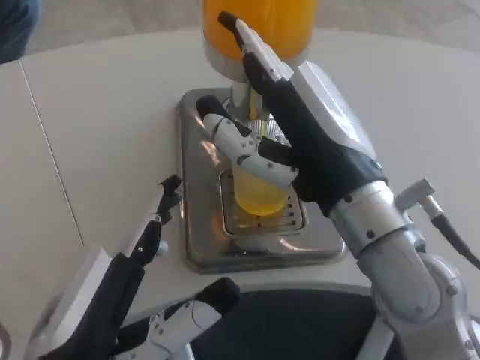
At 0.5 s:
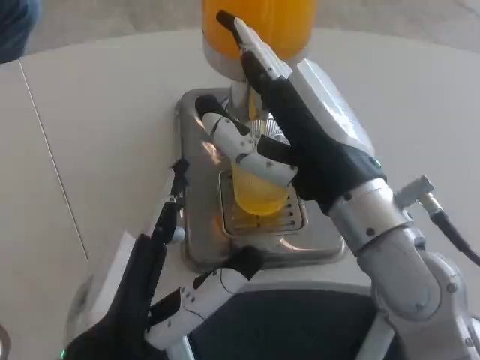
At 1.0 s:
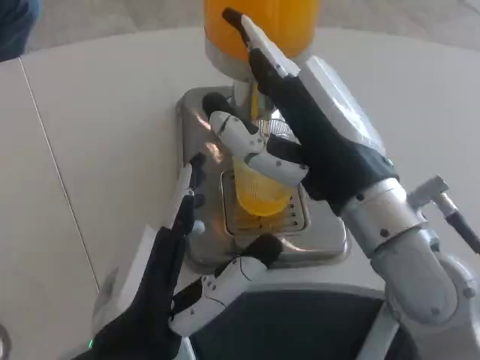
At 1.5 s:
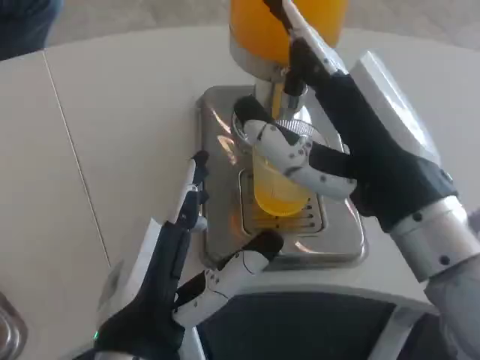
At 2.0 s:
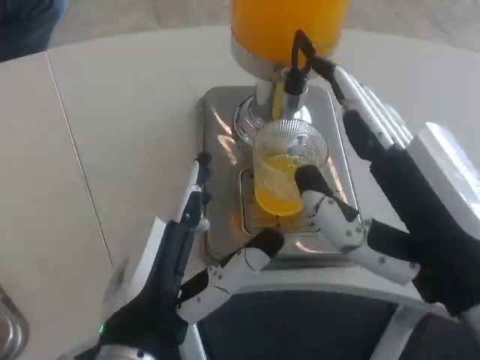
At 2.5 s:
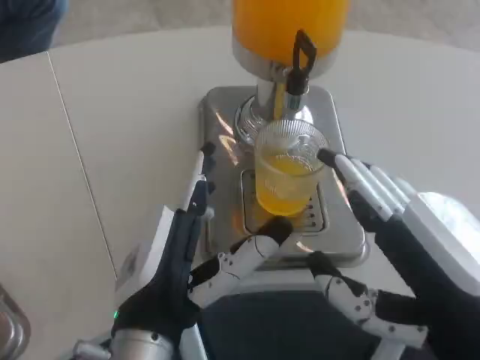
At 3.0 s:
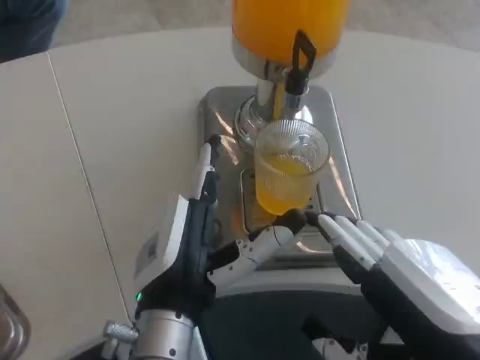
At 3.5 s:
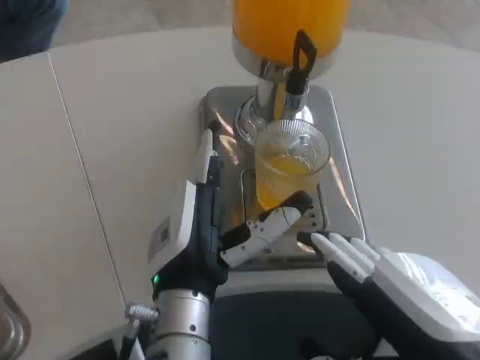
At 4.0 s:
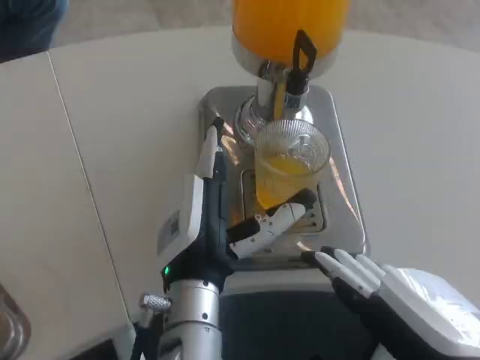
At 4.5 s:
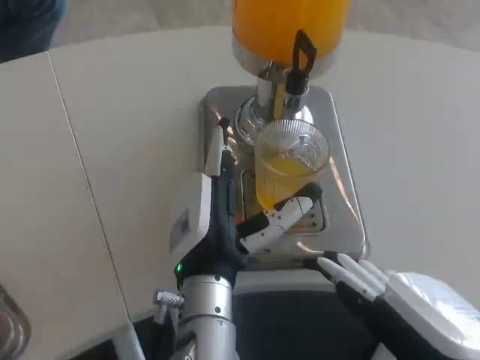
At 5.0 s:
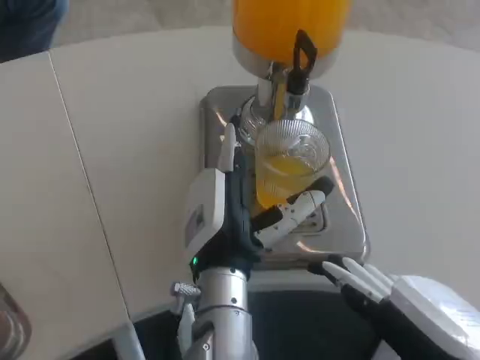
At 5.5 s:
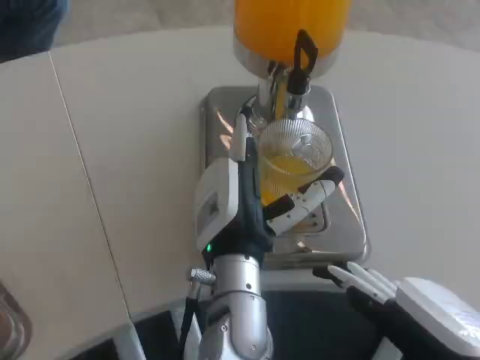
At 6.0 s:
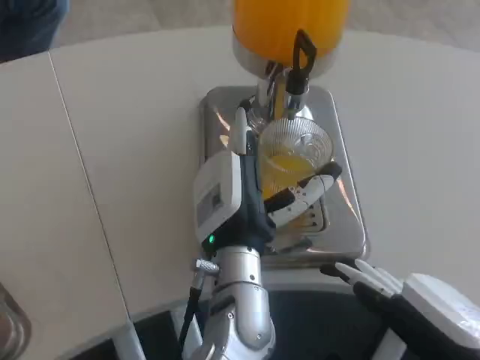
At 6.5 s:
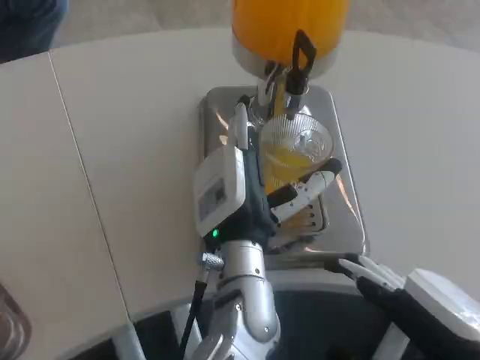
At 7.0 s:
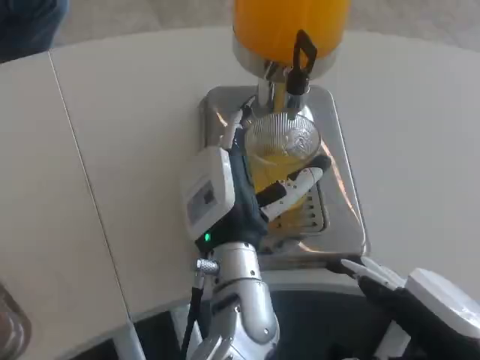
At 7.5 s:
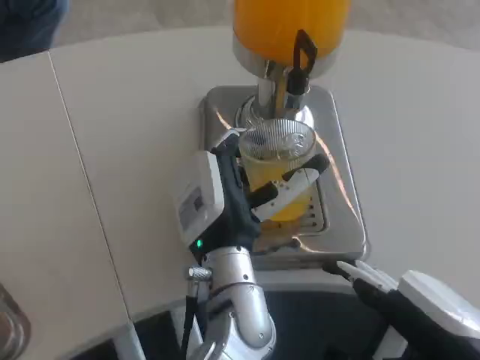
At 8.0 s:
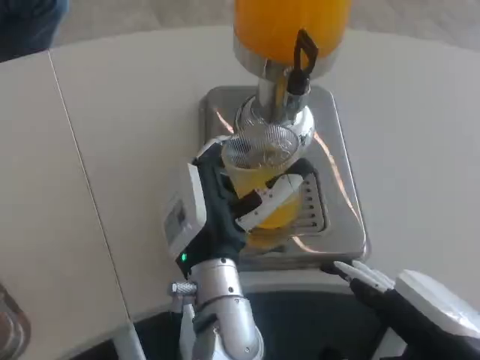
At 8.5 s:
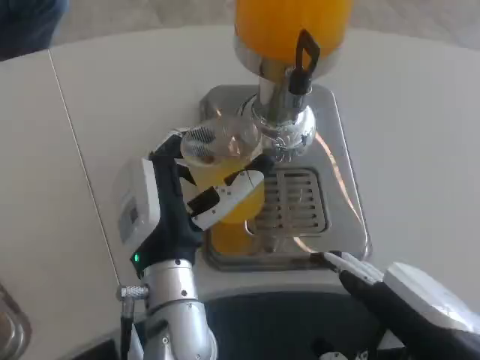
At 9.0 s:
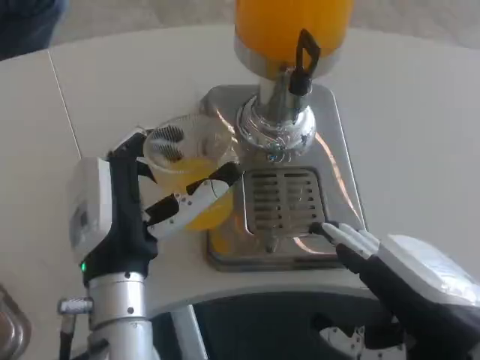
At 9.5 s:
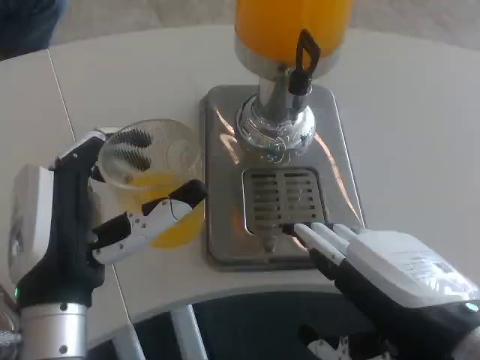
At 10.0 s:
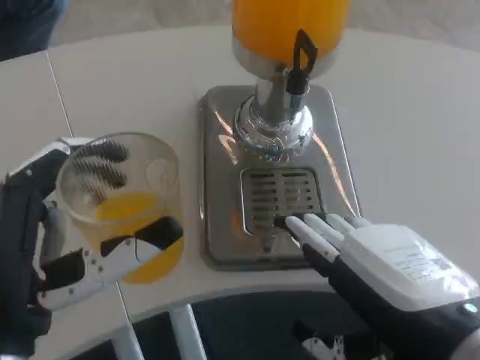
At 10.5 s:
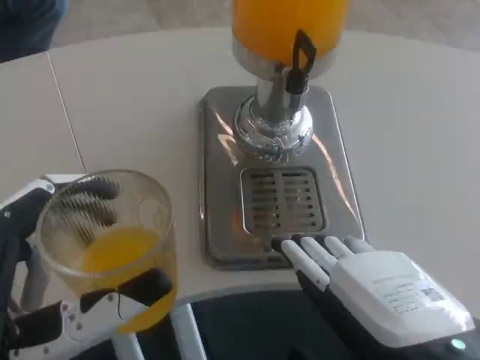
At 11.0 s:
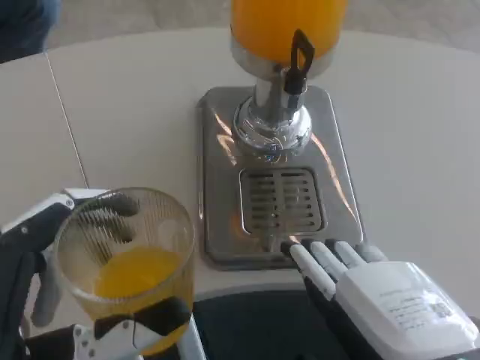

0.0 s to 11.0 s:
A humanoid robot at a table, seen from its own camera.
Task of the whole recording: Grasp the cup under the faucet to collect the drink, then remove the cup.
0.0 to 2.0 s: The left hand moves roughly 5 cm, while the right hand shifts some 10 cm backward and to the right.
2.0 to 3.5 s: The left hand goes approximately 5 cm forward.
3.5 to 5.5 s: The left hand goes roughly 5 cm to the right.
5.5 to 7.5 s: The hands make only small movements.
7.5 to 9.0 s: The left hand heads to the left, covering roughly 10 cm.
9.0 to 11.0 s: The right hand shifts by roughly 5 cm; the left hand is displaced backward and to the left by approximately 15 cm.

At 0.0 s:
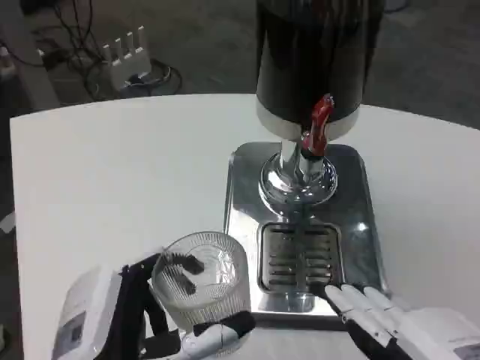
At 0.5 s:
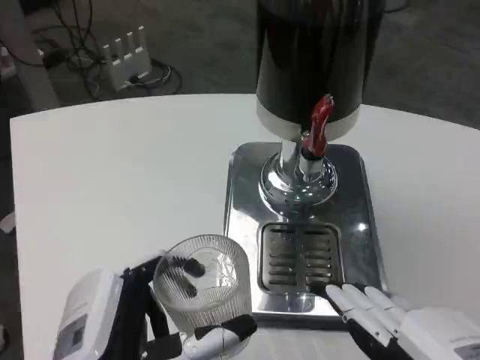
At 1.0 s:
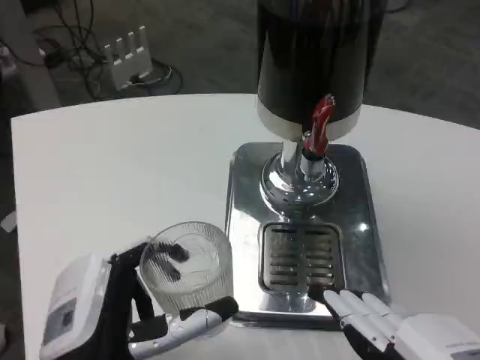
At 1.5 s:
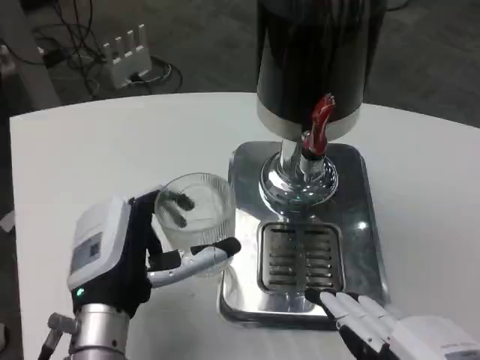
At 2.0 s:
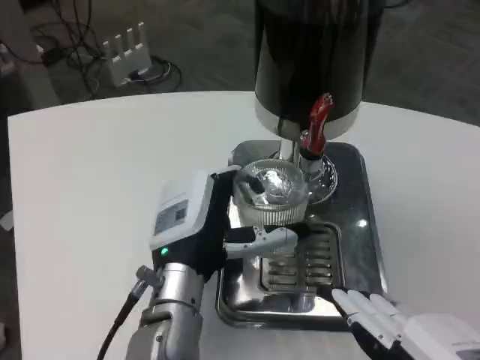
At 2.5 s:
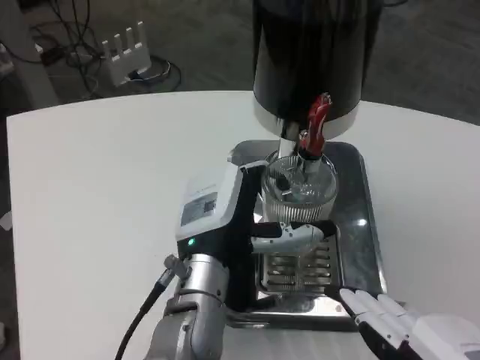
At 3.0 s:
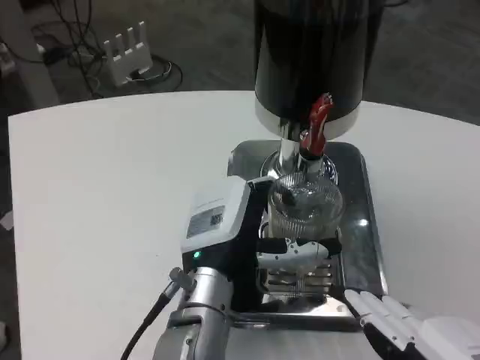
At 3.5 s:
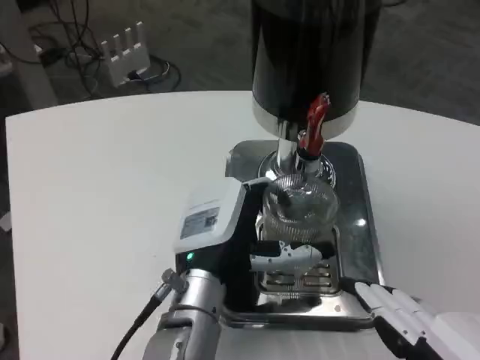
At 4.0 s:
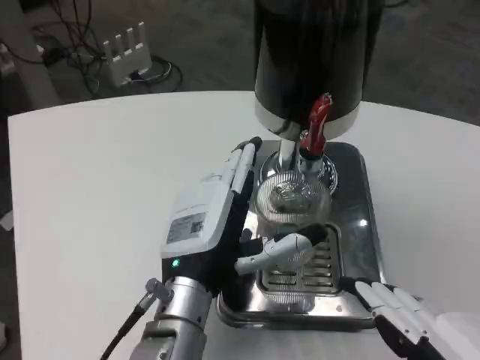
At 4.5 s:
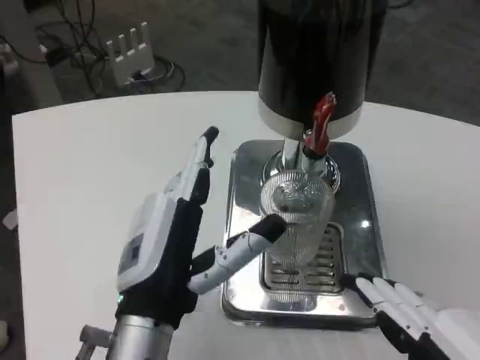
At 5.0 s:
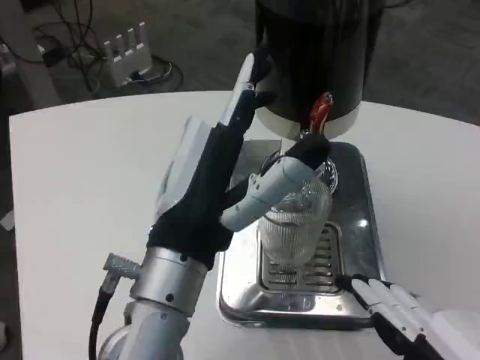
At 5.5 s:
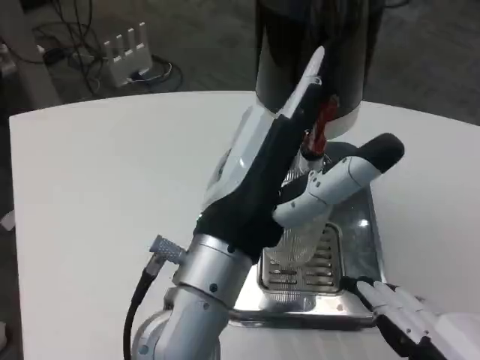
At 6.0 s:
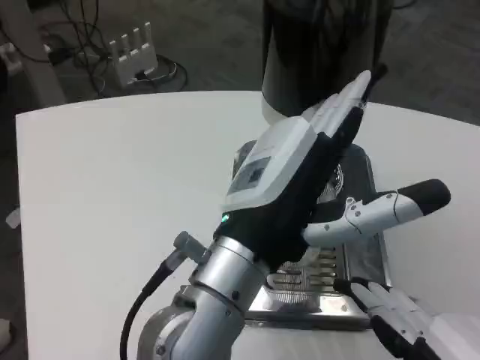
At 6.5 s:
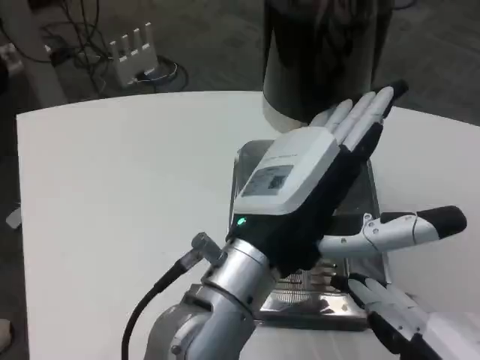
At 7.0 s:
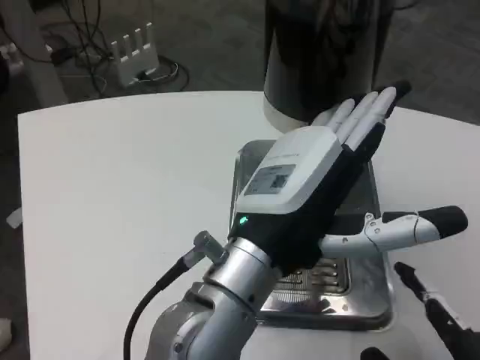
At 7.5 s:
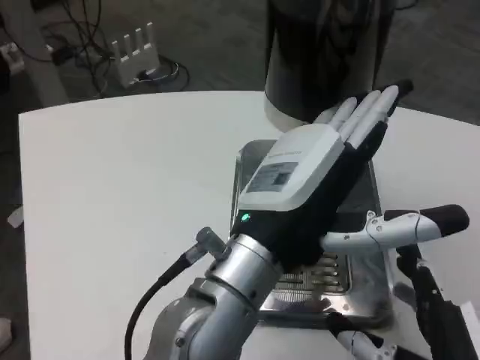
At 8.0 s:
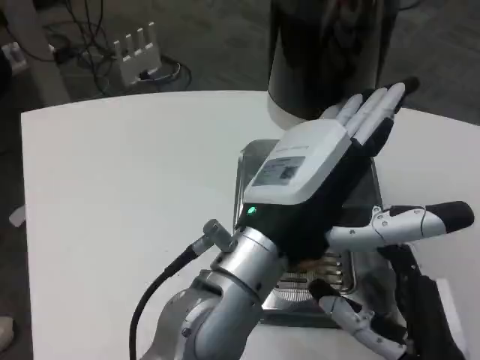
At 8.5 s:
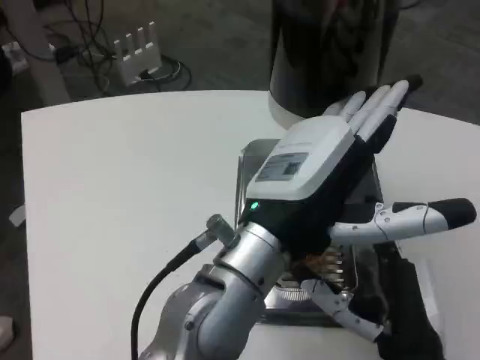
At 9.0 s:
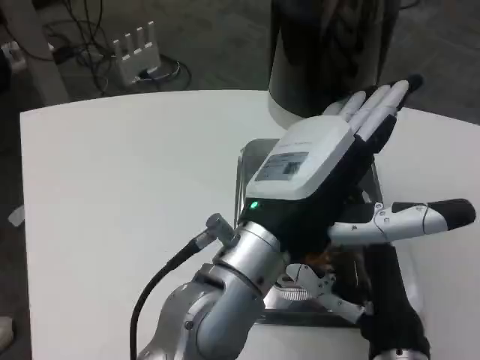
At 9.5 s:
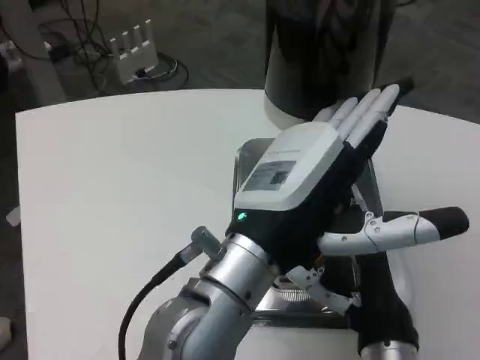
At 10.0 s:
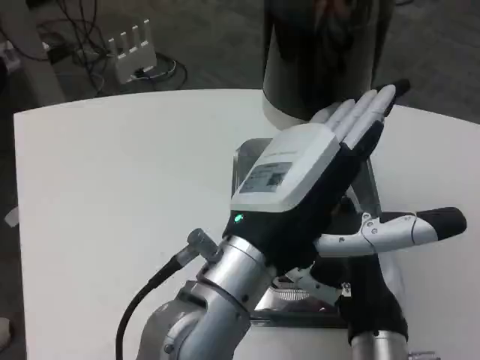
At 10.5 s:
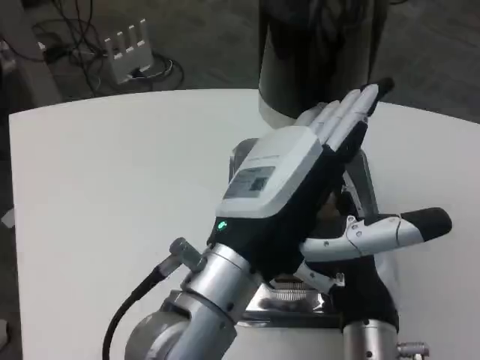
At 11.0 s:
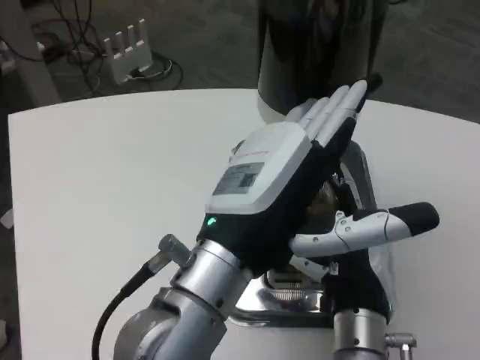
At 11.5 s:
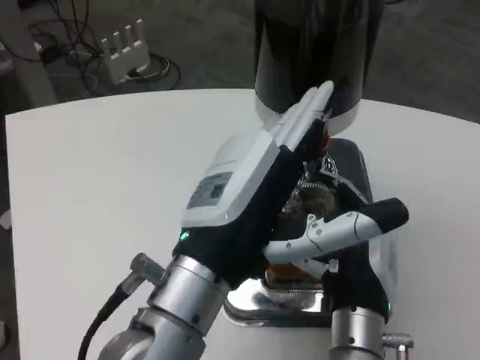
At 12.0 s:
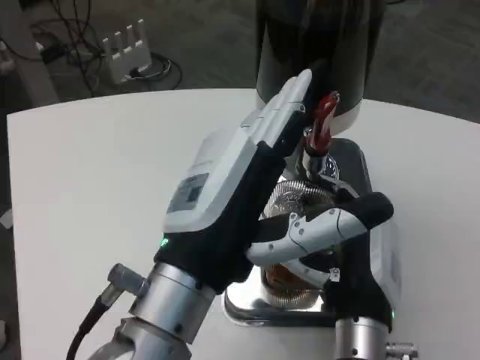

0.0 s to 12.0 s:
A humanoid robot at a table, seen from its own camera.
Task of the whole recording: Grasp the cup under the faucet to collect the drink, then remove the cup.
0.0 to 2.0 s: The left hand goes some 15 cm forward.
2.0 to 4.0 s: The hands stay close to where they were, moving slightly.
4.0 to 6.0 s: The left hand travels upward and backward by approximately 10 cm.
6.0 to 8.0 s: The right hand is displaced forward, downward and to the left by about 15 cm.
8.0 to 10.0 s: The right hand heads forward, covering roughly 5 cm.

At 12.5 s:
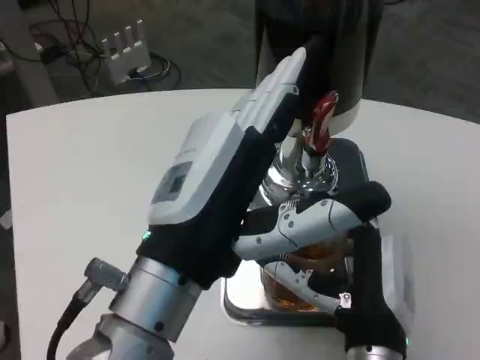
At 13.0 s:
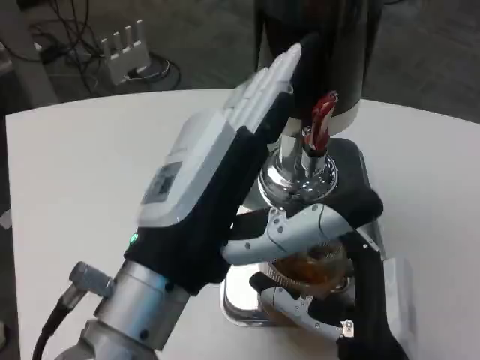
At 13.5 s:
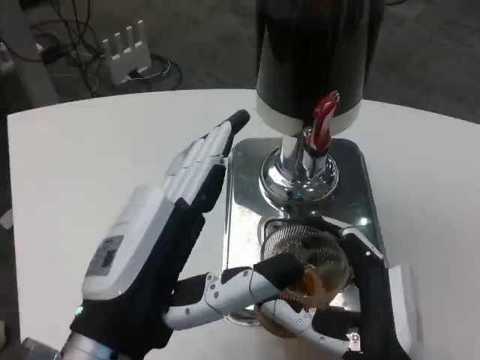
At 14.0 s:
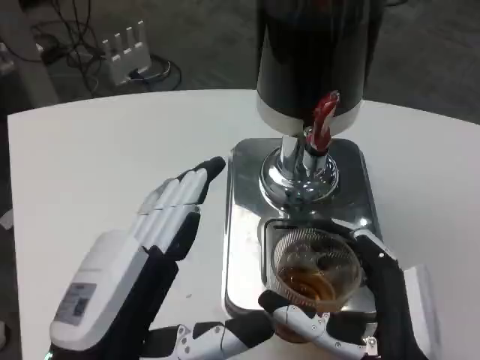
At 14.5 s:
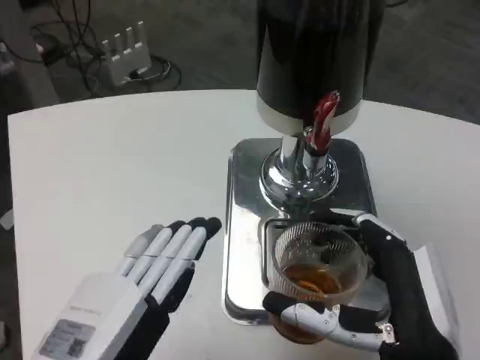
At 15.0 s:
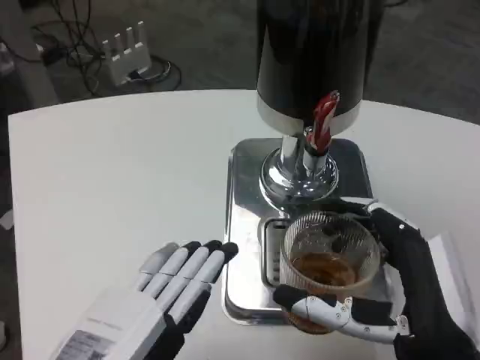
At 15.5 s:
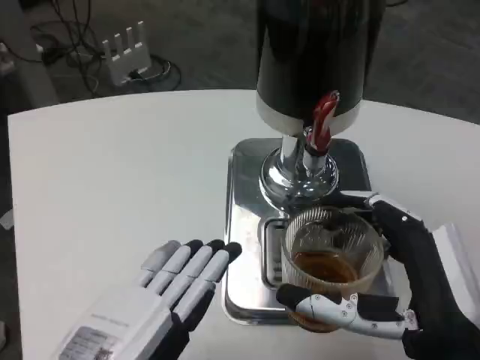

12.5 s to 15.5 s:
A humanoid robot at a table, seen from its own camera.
Task of the whole recording: Grasp the cup under the faucet to collect the drink, then remove the cup.
12.5 to 14.0 s: The left hand goes approximately 10 cm downward and to the left. The right hand travels backward by approximately 5 cm.
14.0 to 15.5 s: The right hand changes place by roughly 5 cm.
